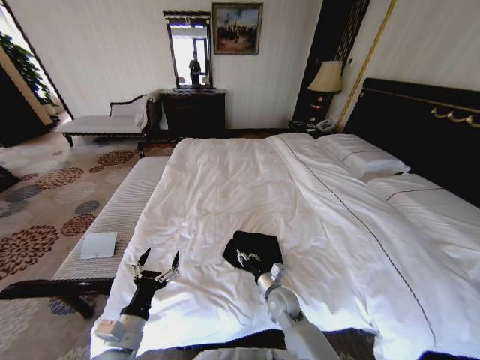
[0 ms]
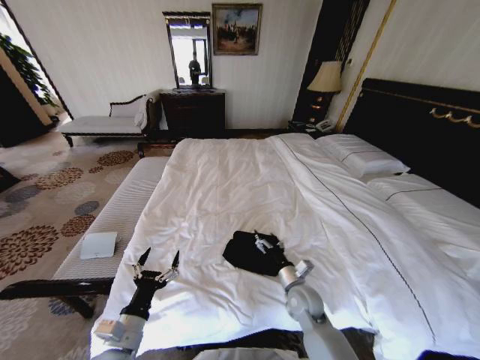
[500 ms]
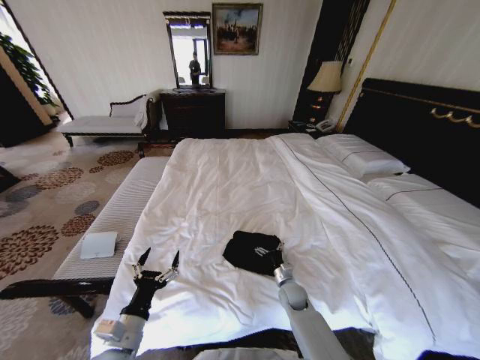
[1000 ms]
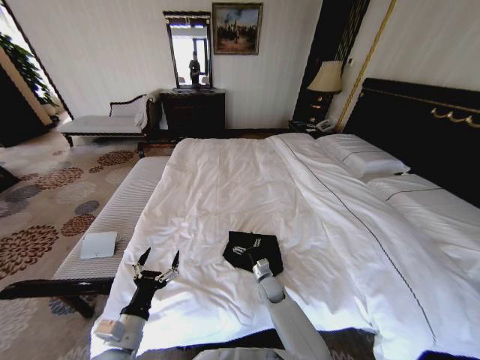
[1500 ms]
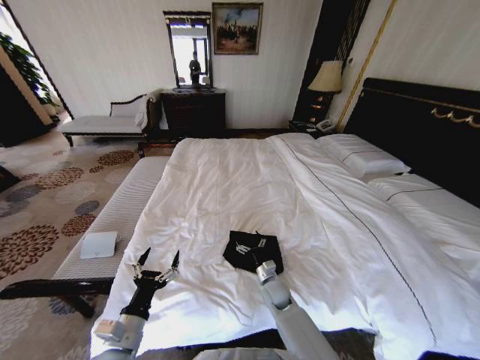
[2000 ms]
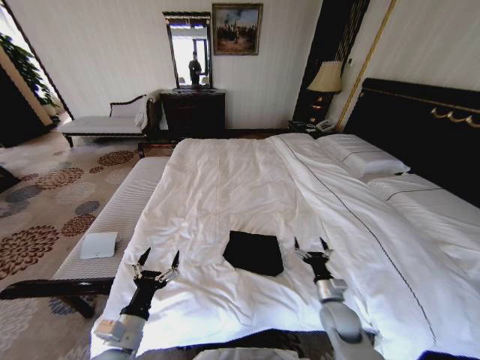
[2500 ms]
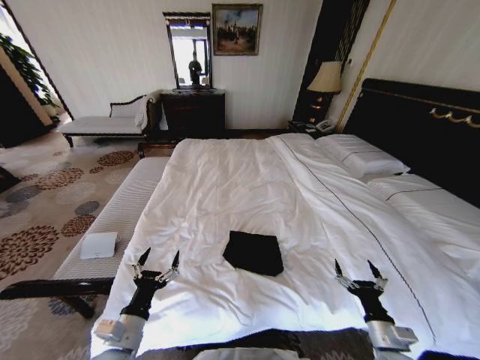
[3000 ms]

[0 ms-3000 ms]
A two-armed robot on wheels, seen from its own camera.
Task of the whole recording: Fold the clothes on the bed.
0 ms to 1500 ms: The right gripper goes approximately 10 cm downward and forward, and opens up.
1500 ms to 3000 ms: The right gripper heads to the right, backward and upward, covering some 35 cm.
